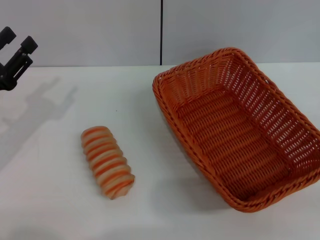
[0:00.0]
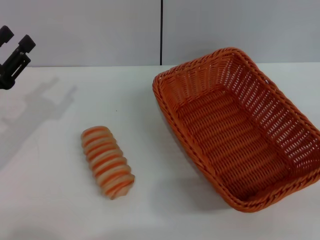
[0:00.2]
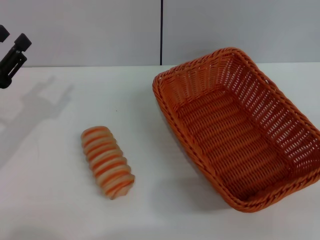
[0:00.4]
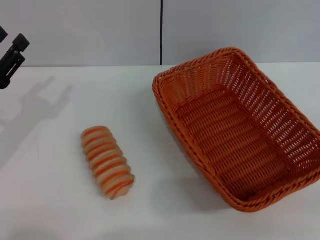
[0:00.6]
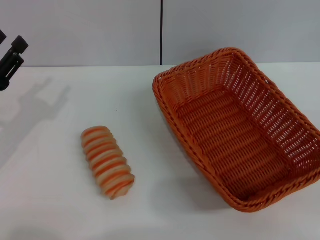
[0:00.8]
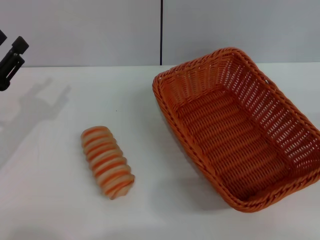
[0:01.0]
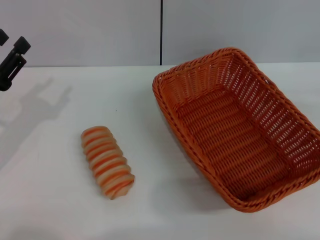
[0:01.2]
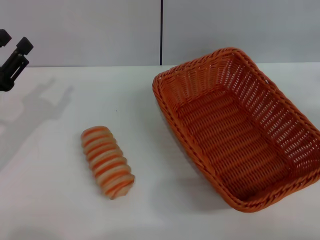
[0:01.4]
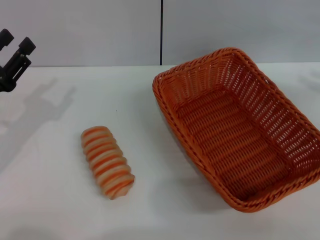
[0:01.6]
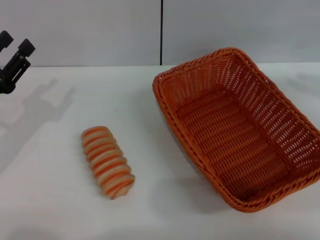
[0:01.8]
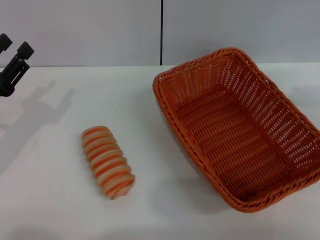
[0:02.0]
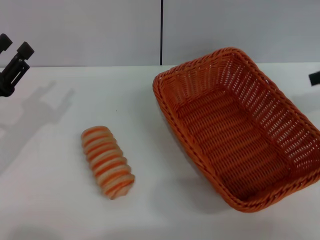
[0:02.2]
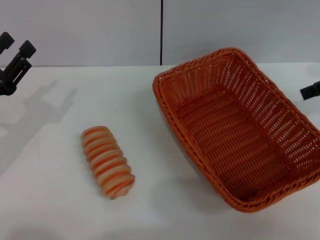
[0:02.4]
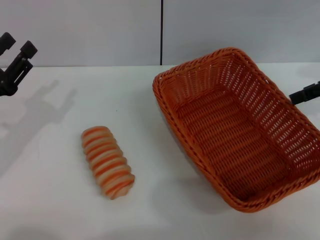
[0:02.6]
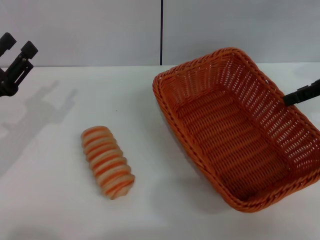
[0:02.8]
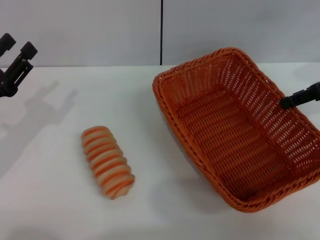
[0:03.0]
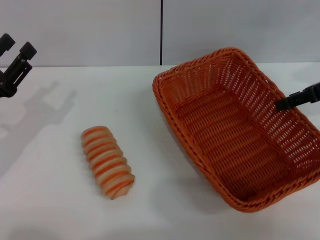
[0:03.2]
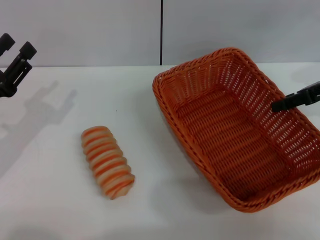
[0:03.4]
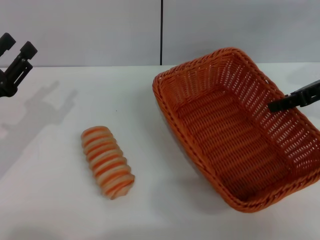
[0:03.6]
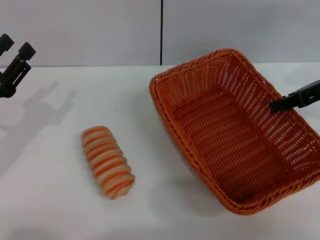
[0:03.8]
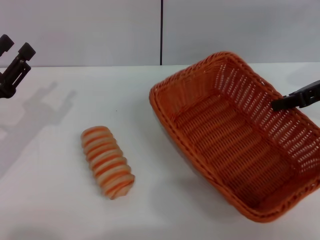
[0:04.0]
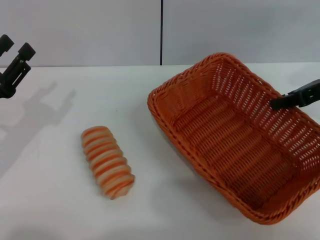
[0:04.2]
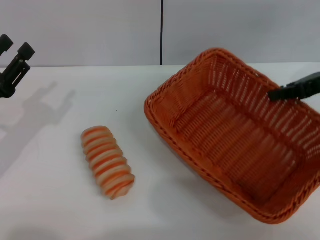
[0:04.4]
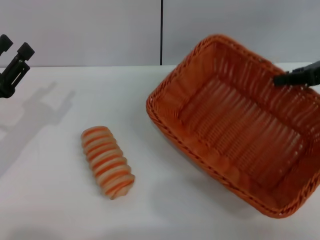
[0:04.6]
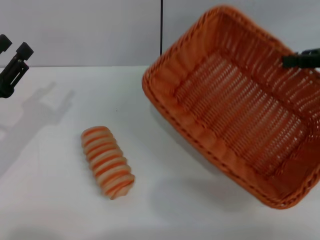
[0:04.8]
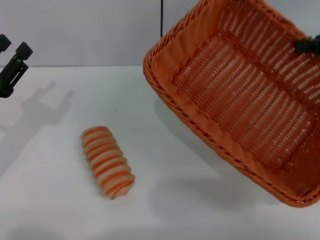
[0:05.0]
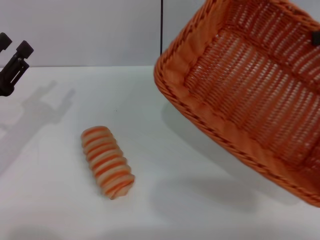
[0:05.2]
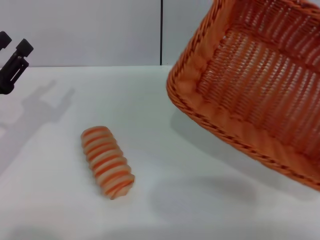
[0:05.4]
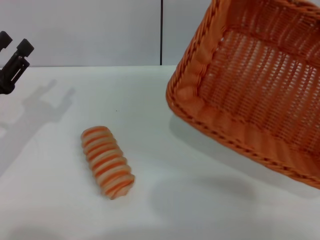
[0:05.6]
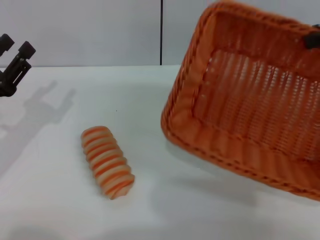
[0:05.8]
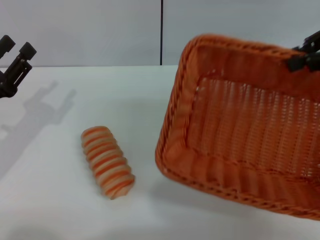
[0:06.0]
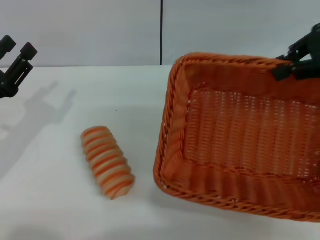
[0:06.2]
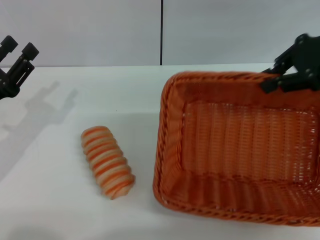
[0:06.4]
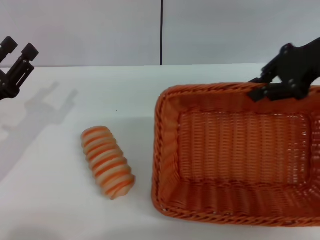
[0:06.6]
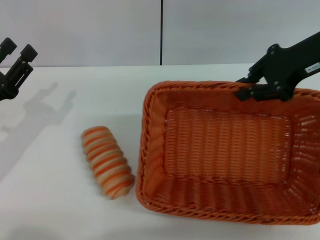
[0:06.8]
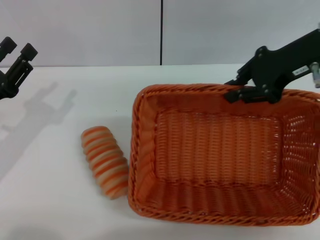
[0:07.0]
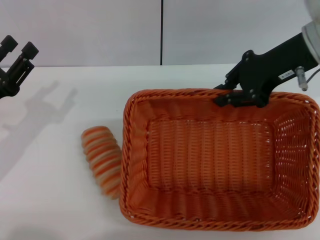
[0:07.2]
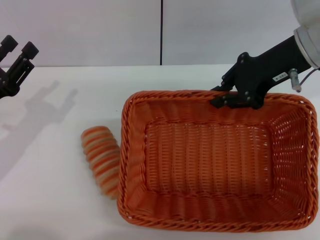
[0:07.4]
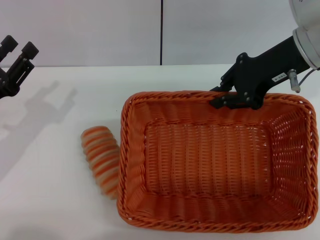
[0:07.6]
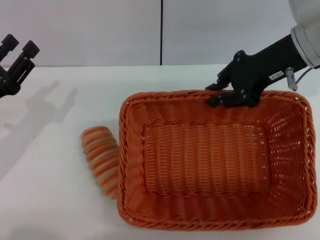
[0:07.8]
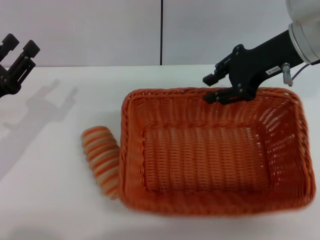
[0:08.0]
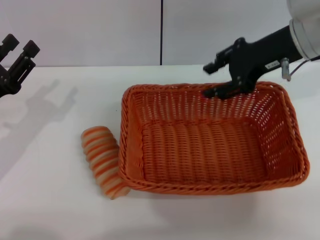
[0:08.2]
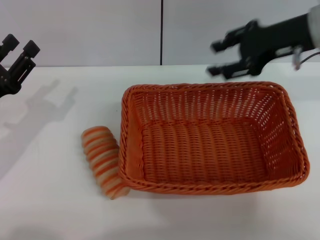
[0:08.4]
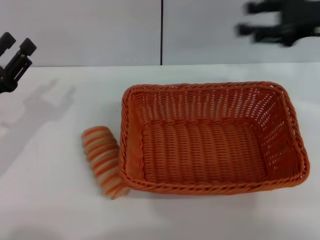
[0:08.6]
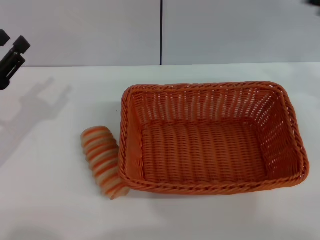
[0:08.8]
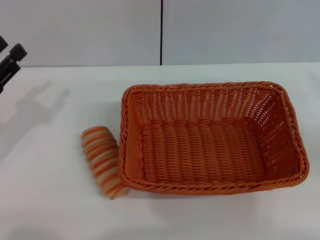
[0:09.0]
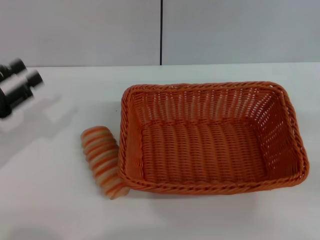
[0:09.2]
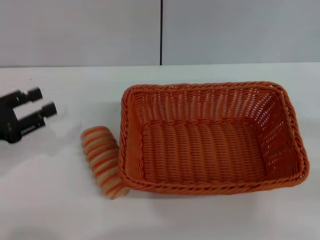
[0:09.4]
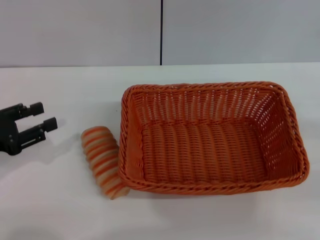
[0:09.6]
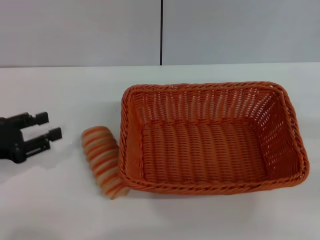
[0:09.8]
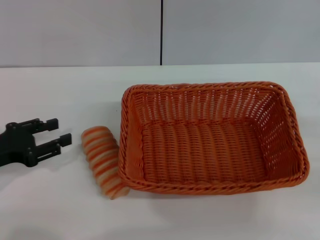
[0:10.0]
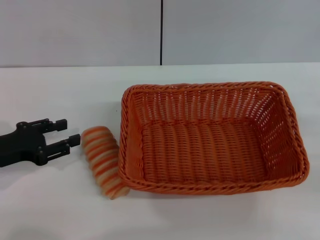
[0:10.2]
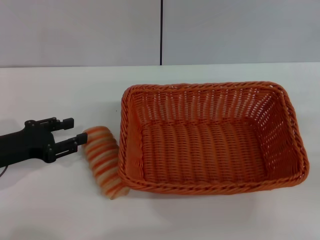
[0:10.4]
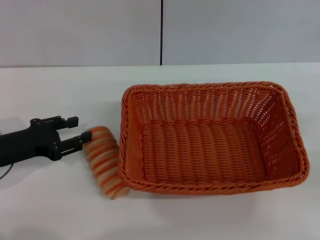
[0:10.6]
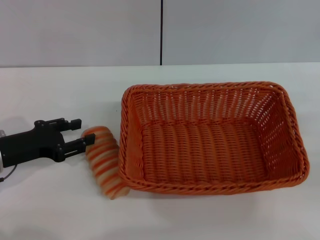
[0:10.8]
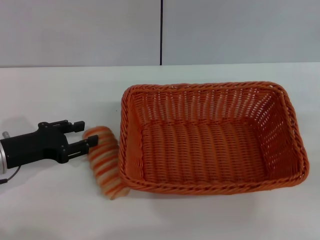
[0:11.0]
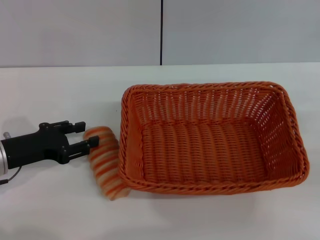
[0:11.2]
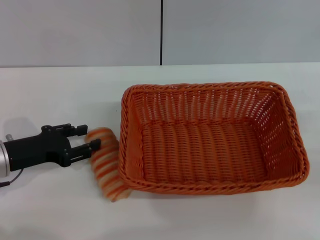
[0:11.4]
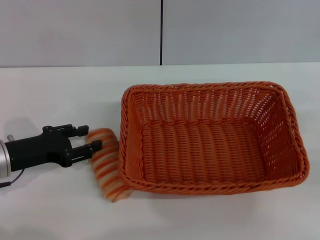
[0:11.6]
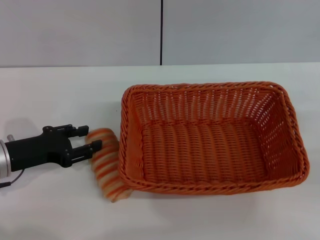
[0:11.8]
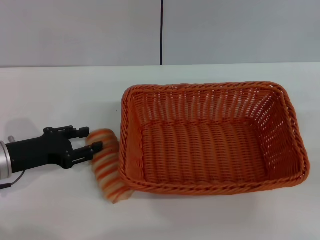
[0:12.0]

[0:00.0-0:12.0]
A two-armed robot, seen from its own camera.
Step, 0:00.0 to 0:04.6: Pick up the light basket with the right gripper.
Step, 0:04.8 to 0:08.2: Place the light basket in the center of view with the right gripper.
0:00.0 to 0:01.6: The right gripper moves upward and forward, roughly 20 cm.
0:01.6 to 0:03.0: The right gripper shifts about 10 cm to the left and forward.
0:03.0 to 0:04.4: The right gripper closes.
0:04.4 to 0:06.0: The right gripper is displaced upward by approximately 10 cm.
0:06.0 to 0:07.6: The right gripper shifts some 15 cm to the left and downward.
0:07.6 to 0:09.0: The right gripper heads to the right and backward, covering roughly 25 cm, and opens its fingers.
0:10.4 to 0:12.0: The grippers make only small movements.

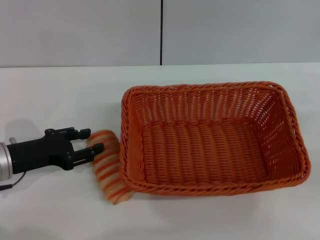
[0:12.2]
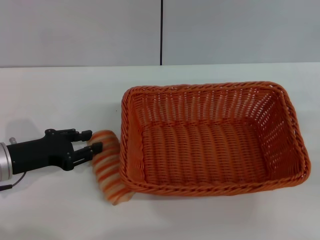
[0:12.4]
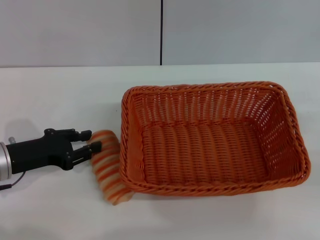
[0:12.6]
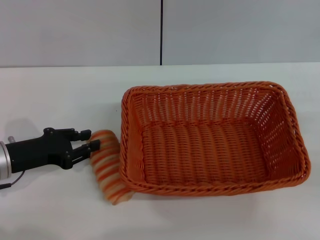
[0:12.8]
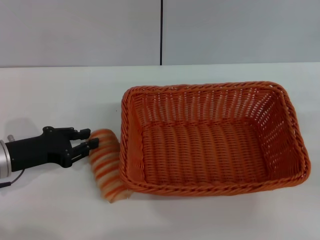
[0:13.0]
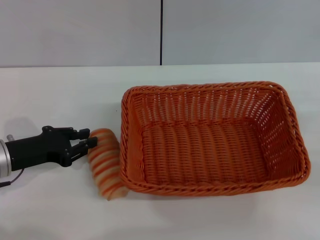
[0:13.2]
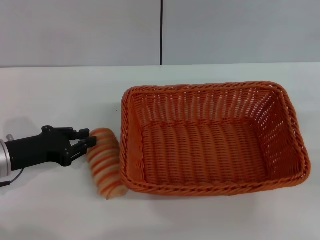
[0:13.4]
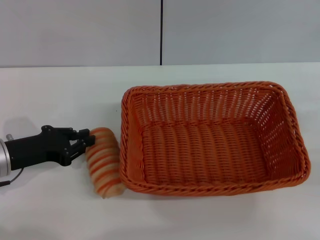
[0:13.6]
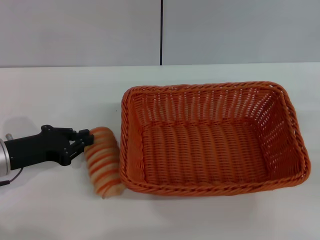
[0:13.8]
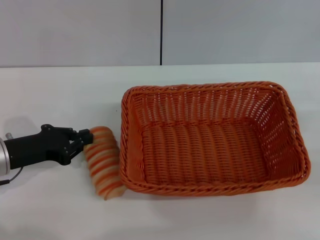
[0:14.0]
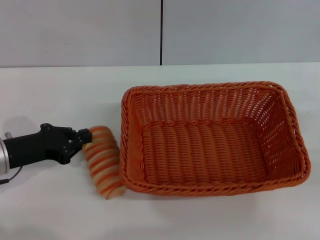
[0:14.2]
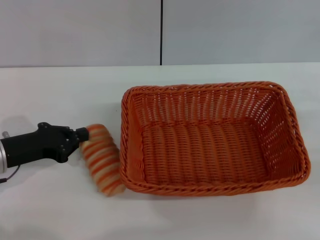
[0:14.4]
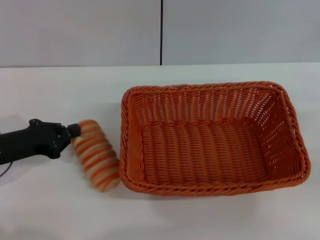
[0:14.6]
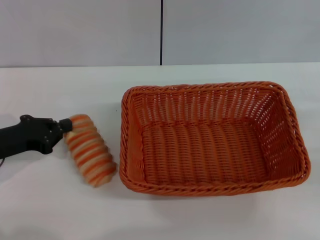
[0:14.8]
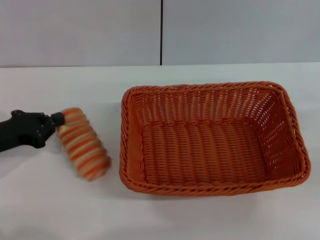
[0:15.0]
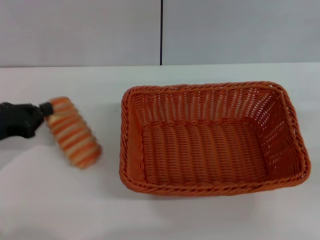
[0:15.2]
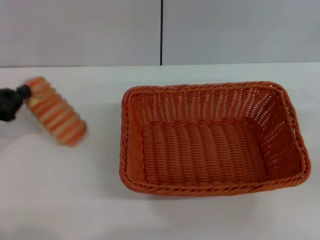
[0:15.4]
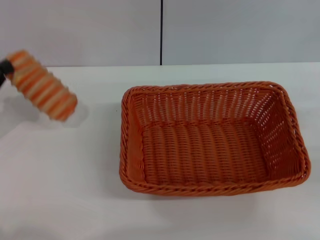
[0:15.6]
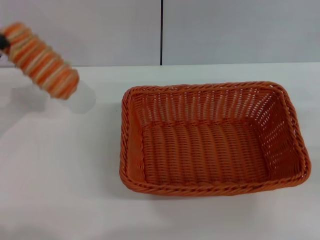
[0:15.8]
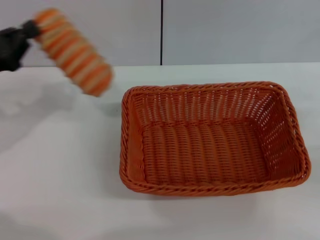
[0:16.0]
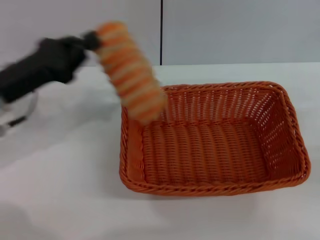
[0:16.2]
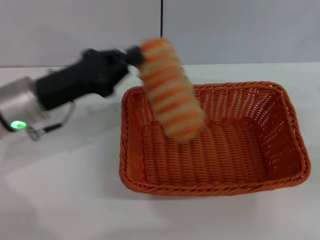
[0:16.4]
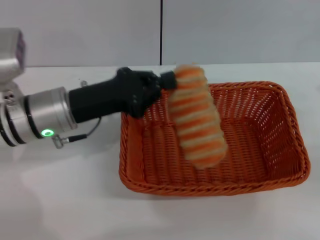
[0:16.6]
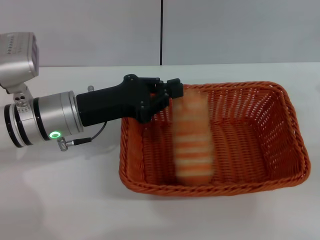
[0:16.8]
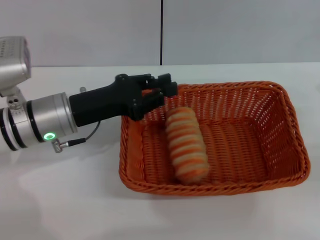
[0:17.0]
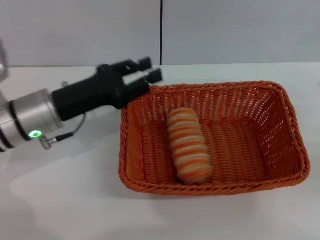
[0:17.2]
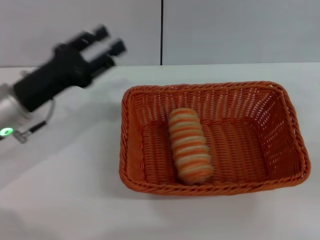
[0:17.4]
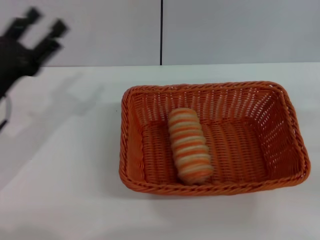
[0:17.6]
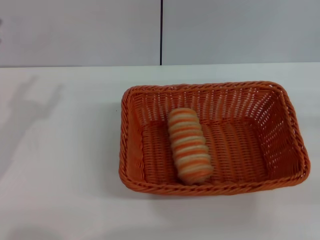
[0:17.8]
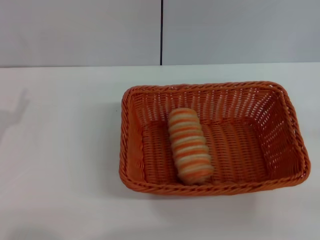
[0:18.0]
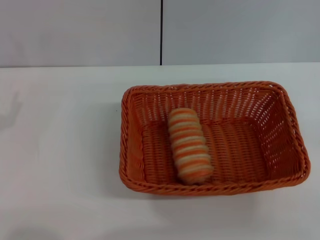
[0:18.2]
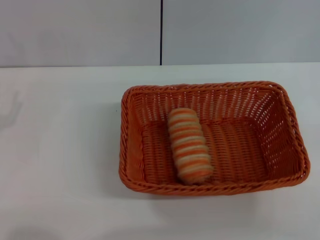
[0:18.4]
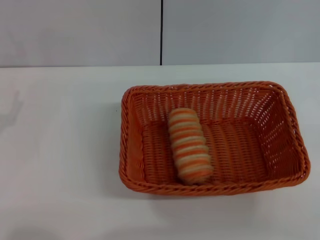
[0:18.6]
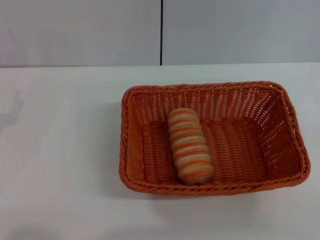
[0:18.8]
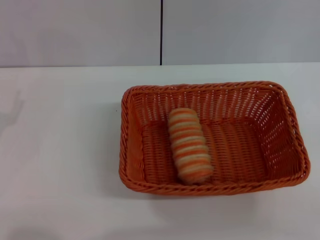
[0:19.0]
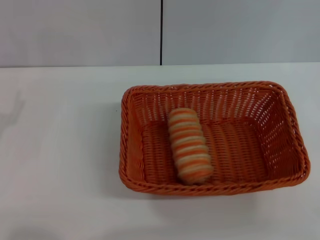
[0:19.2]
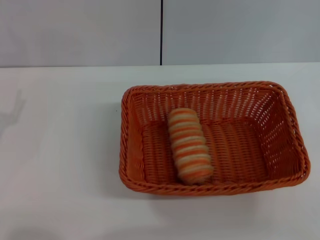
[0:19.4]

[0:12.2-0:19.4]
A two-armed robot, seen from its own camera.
Step, 0:12.2 to 0:15.6: Pick up the long bread with the left gripper.
Step, 0:15.8 to 0:17.2: Place the long bread into the light basket with the left gripper.
0:12.2 to 0:13.6: The left gripper closes its fingers.
0:13.6 to 0:15.0: The grippers stay close to where they were, moving slightly.
0:15.0 to 0:16.6: The left gripper travels to the right by approximately 15 cm.
0:16.6 to 0:18.0: The left gripper travels to the left and backward by roughly 15 cm, and opens. Meanwhile the right gripper moves roughly 5 cm.
